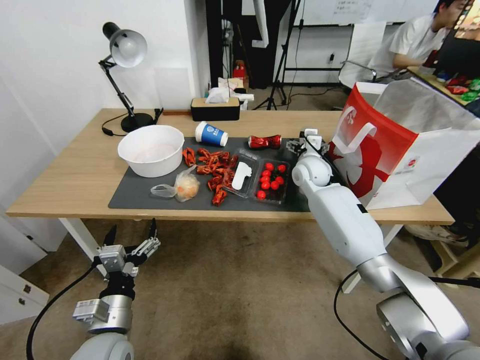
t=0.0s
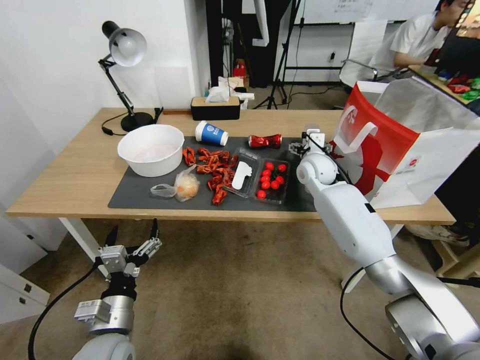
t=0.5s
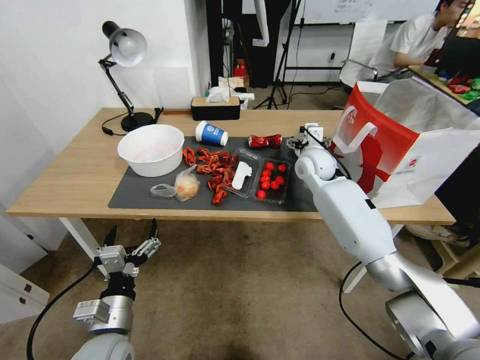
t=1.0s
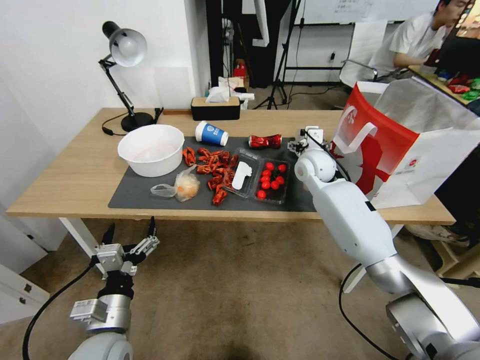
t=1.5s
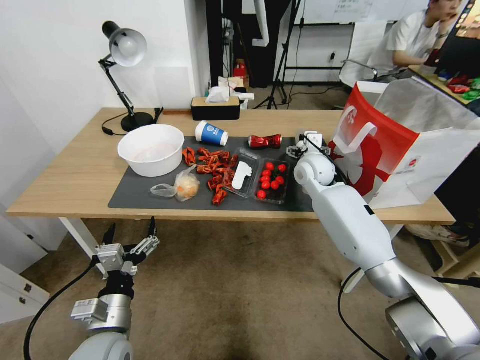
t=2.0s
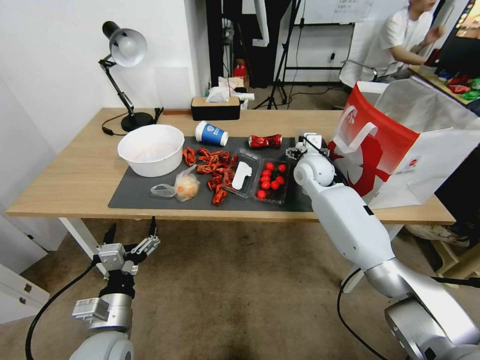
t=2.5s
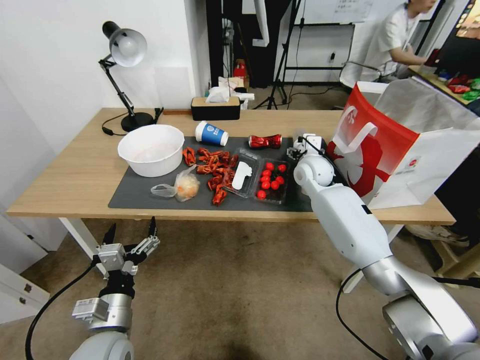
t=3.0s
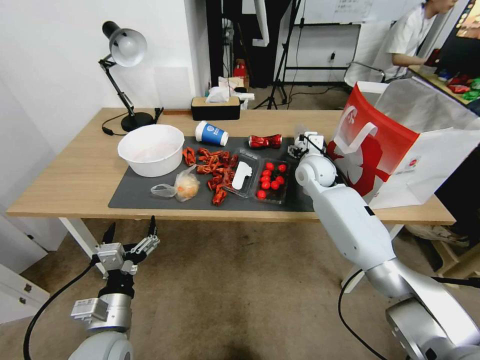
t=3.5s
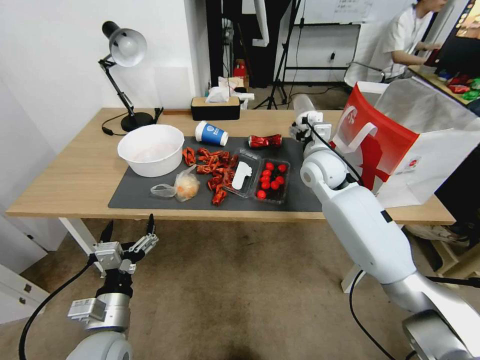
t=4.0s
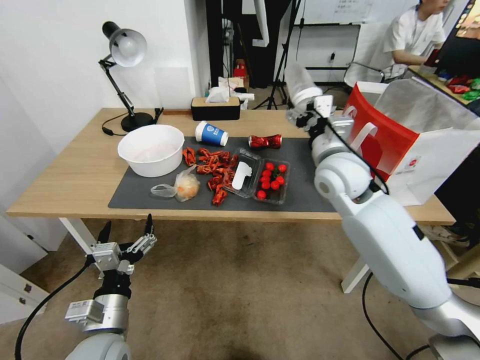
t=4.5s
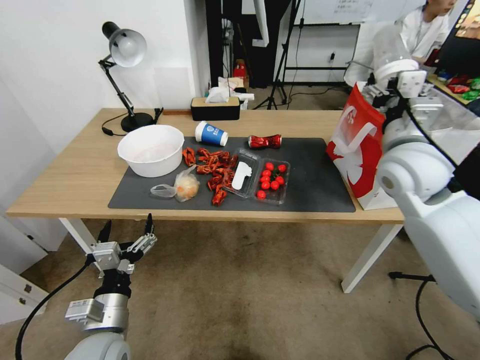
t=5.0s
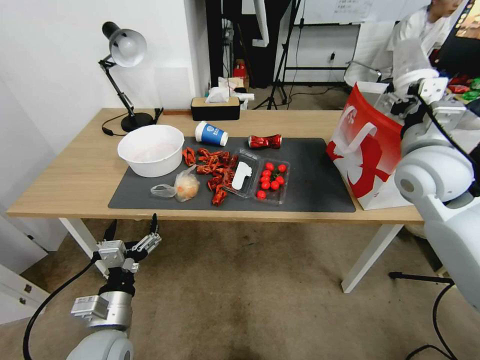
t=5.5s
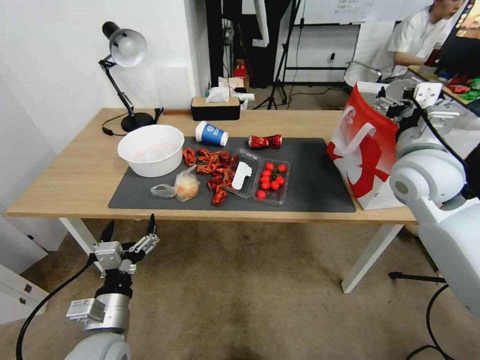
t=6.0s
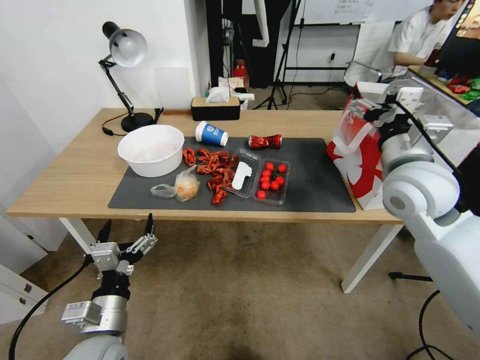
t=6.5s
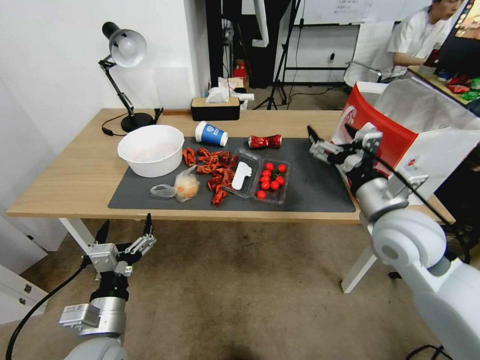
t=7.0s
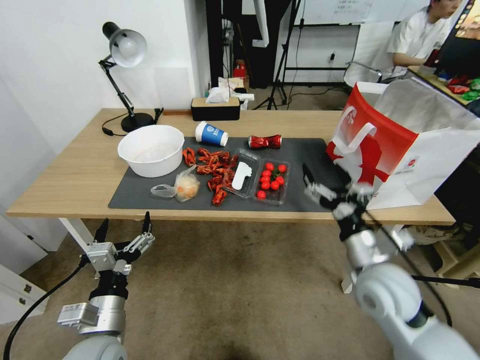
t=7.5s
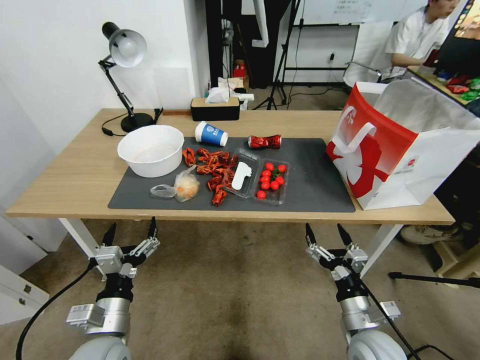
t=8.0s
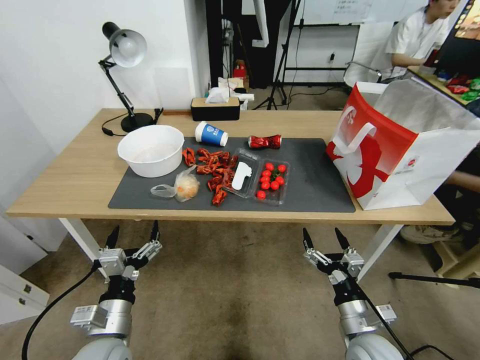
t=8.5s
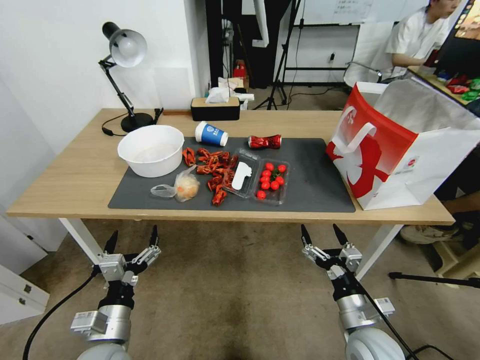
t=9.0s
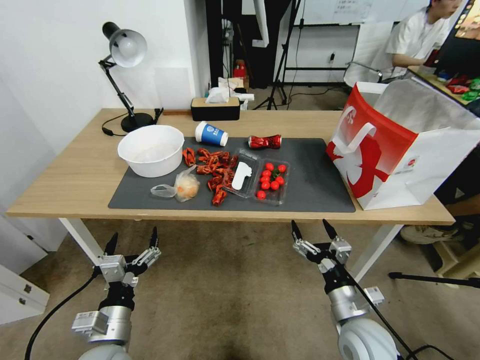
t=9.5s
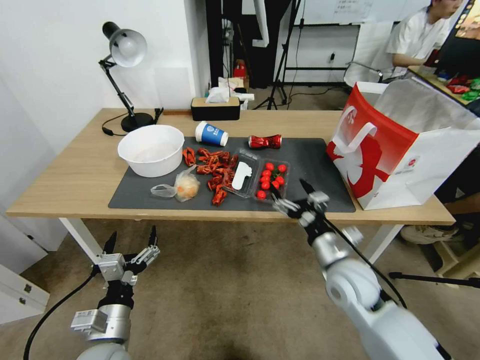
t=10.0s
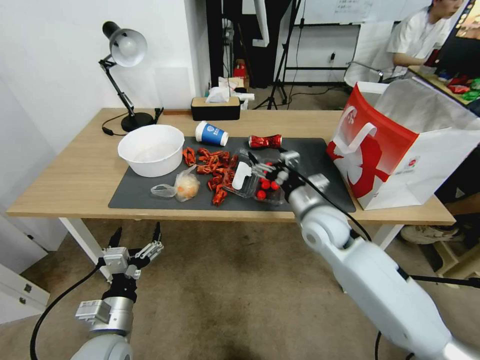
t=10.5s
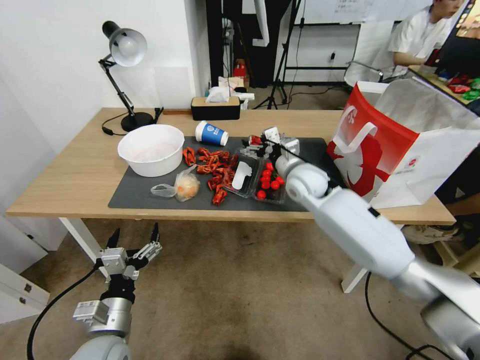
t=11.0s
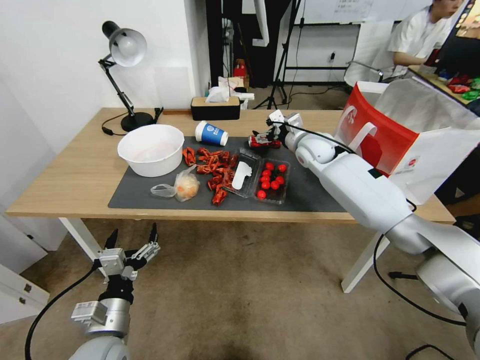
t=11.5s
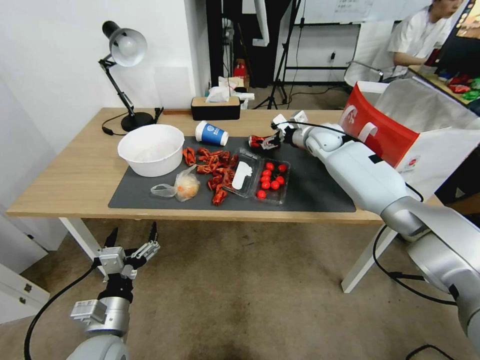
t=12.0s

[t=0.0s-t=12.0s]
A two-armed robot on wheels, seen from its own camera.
t=0.0s to t=2.0s: The grippers stay close to where they were, moving slightly.
t=2.0s to t=4.0s: The right gripper travels upward and backward by roughly 10 cm.
t=4.0s to t=6.0s: The right gripper moves to the right, backward and upward, some 20 cm.
t=6.0s to t=8.0s: The right gripper travels downward and backward by some 35 cm.
t=8.0s to t=10.0s: The right gripper moves forward and upward, about 15 cm.
t=10.0s to t=12.0s: The right gripper moves forward, approximately 35 cm.

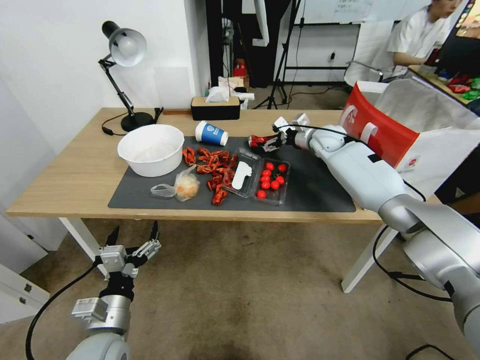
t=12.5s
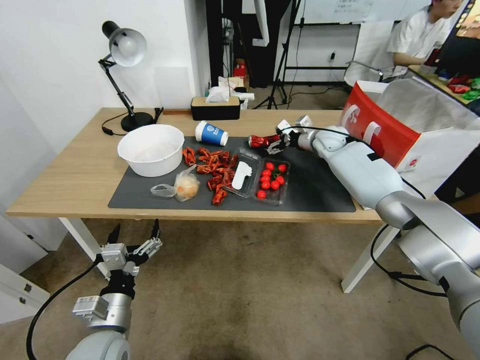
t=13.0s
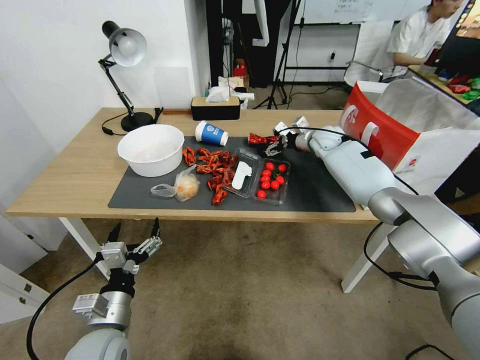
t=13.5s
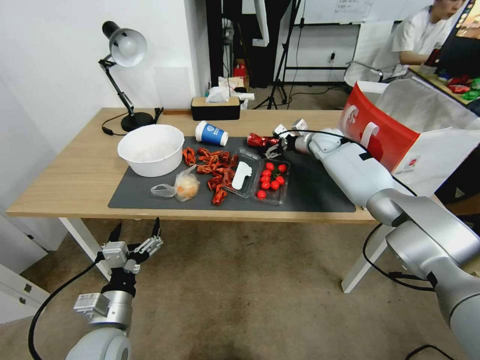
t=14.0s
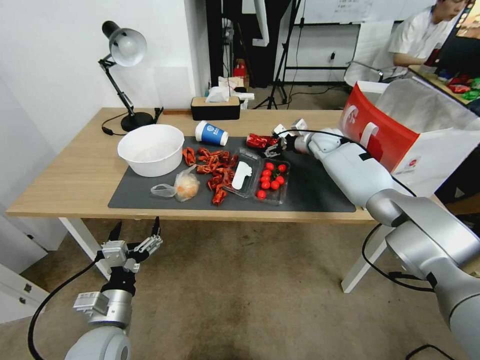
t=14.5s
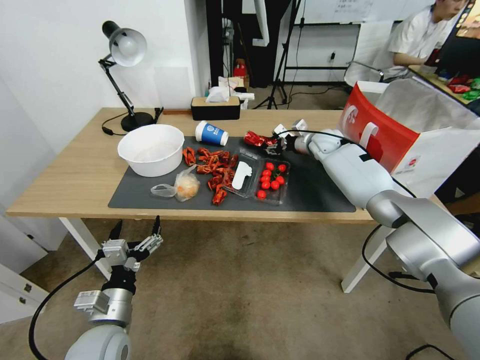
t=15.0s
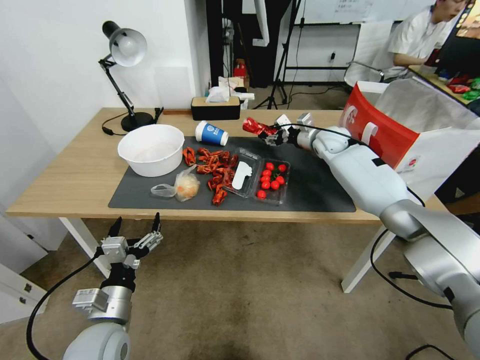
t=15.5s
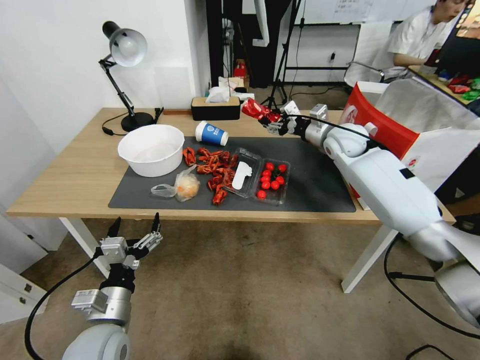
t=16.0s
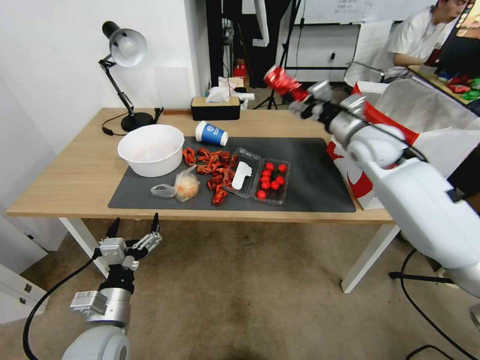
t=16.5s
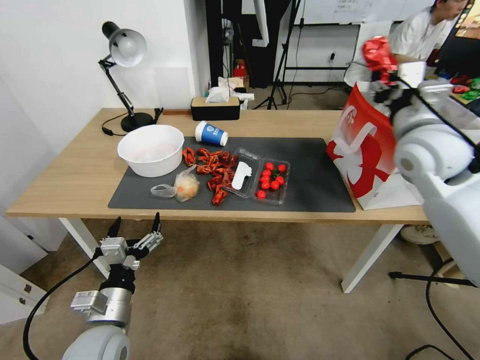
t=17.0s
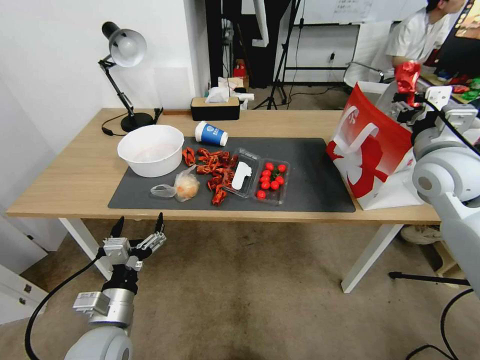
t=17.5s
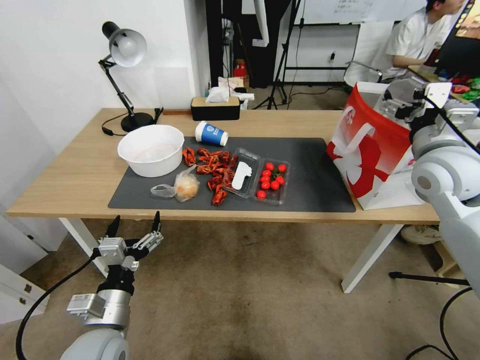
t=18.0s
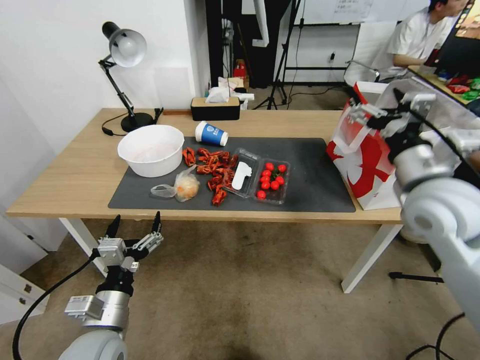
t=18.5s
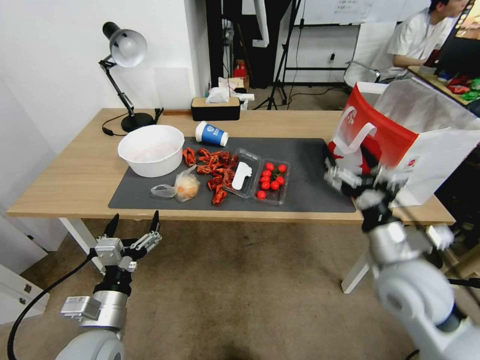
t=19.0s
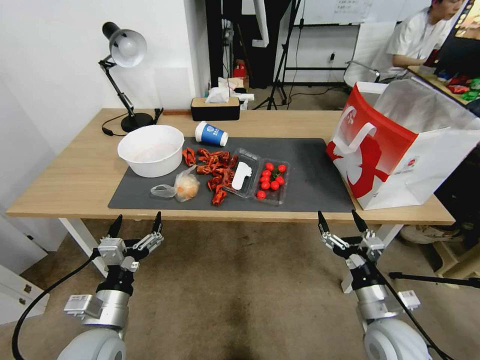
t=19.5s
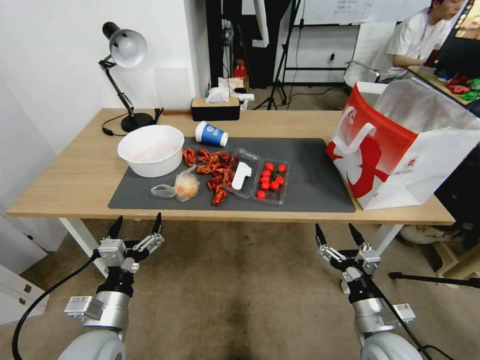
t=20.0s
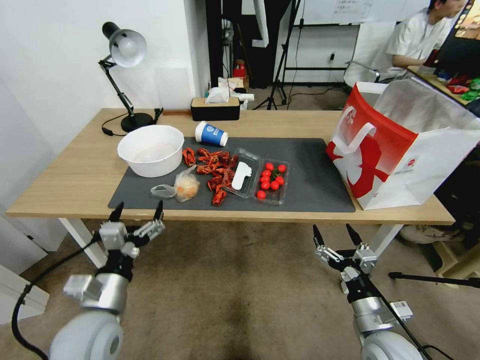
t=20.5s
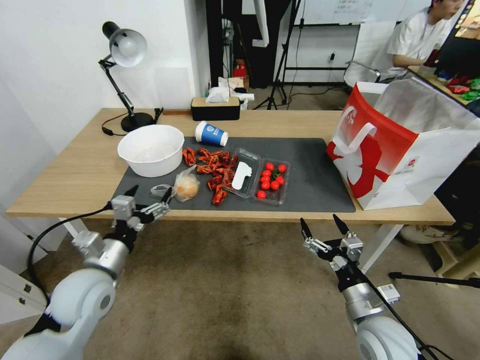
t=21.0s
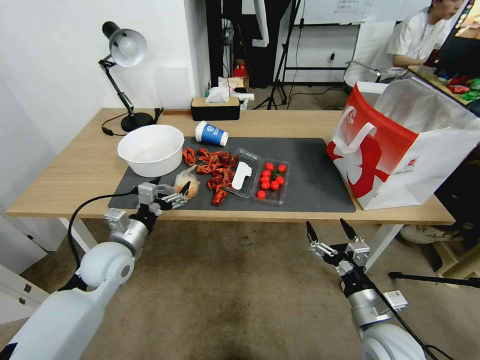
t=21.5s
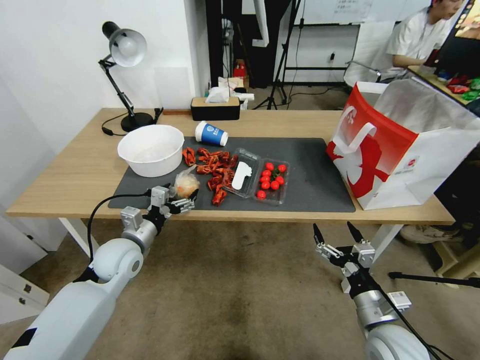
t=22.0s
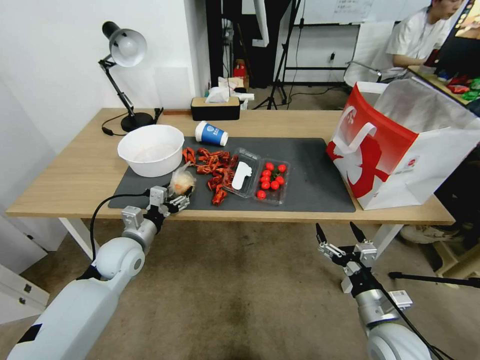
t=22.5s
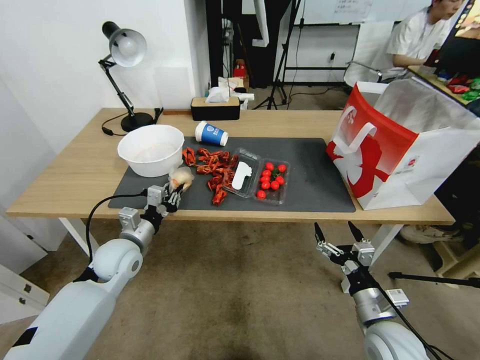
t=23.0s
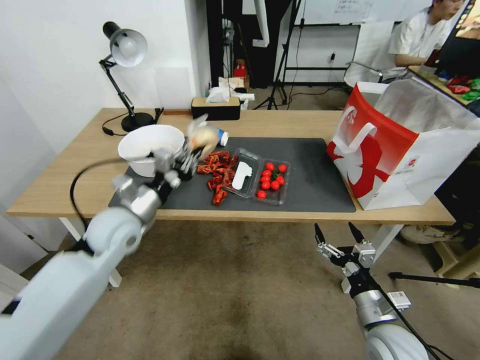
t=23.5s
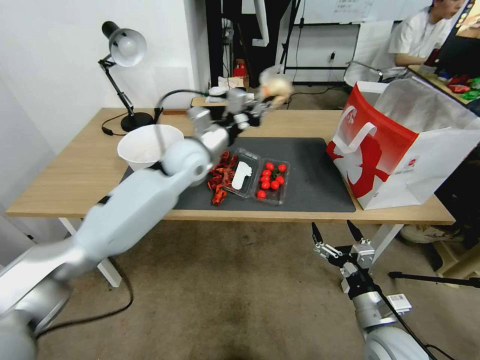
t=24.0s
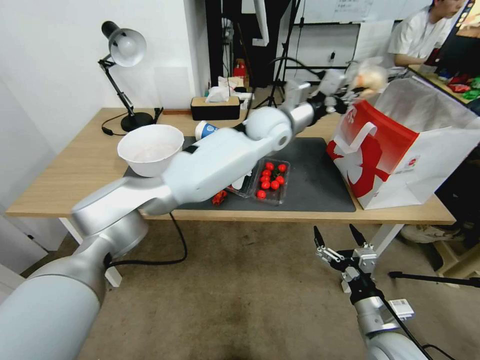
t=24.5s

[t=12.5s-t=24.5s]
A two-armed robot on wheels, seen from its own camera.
t=12.5s to t=14.5s: The grippers make only small movements.
t=14.5s to t=16.5s: The right gripper moves backward and upward, some 20 cm.
t=16.5s to t=18.5s: The right gripper goes approximately 15 cm backward, and opens.
t=18.5s to t=20.5s: The right gripper travels downward and backward by roughly 35 cm.
t=20.5s to t=22.5s: The left gripper shifts approximately 15 cm forward.
t=22.5s to t=24.5s: The left gripper shifts about 50 cm to the right, upward and forward, and closes its fingers.

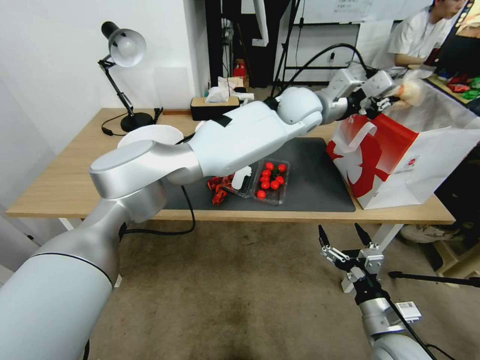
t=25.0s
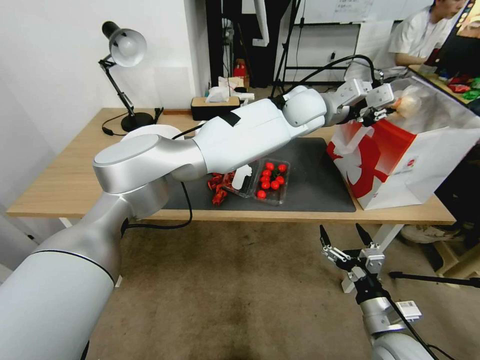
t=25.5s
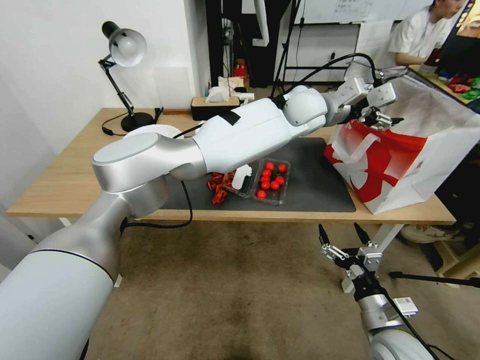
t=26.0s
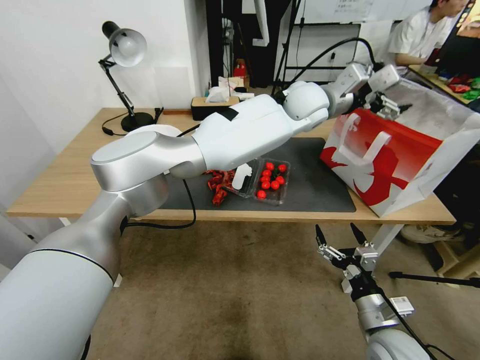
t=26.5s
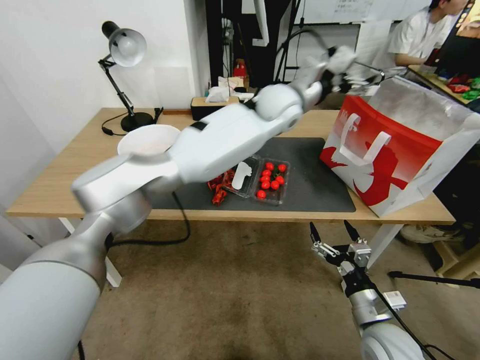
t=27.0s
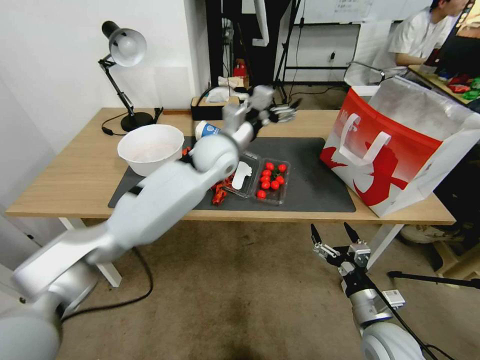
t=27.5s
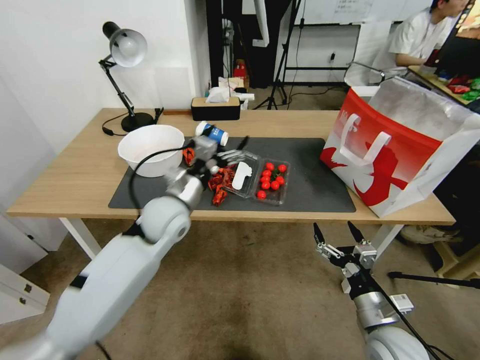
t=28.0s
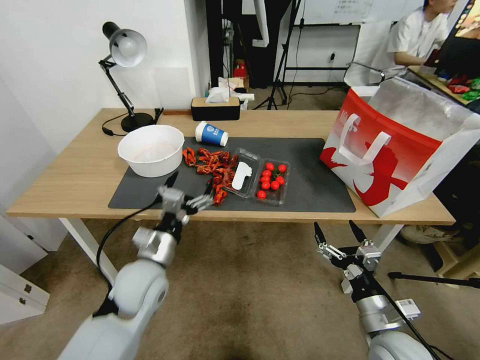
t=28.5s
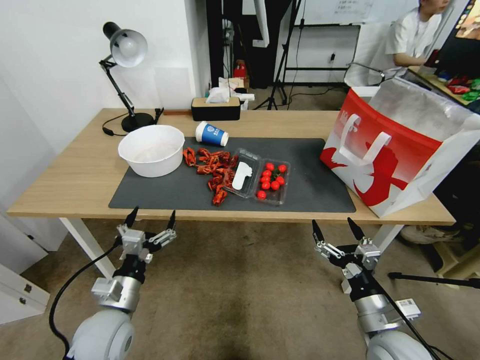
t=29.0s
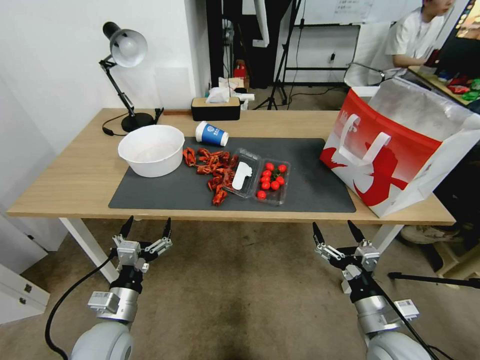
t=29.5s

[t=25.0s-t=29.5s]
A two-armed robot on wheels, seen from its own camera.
t=25.0s to t=27.0s: The left gripper travels to the left by about 5 cm, and opens up.
t=27.0s to t=29.5s: The left gripper shifts roughly 60 cm backward, to the left and downward.
